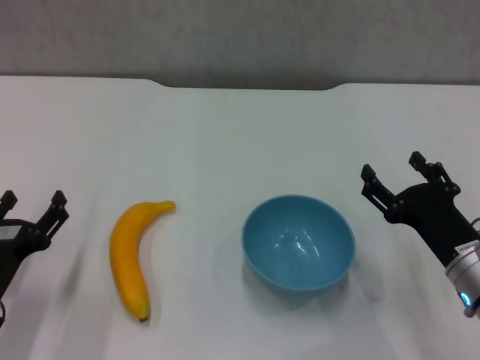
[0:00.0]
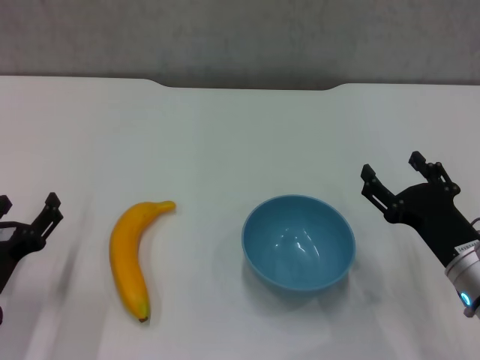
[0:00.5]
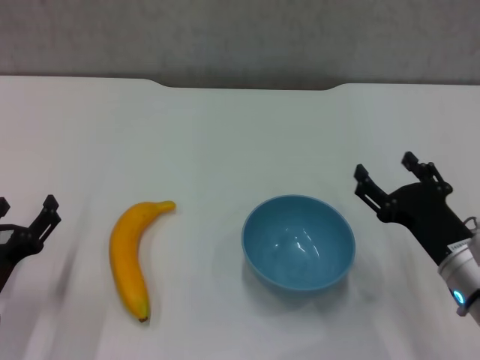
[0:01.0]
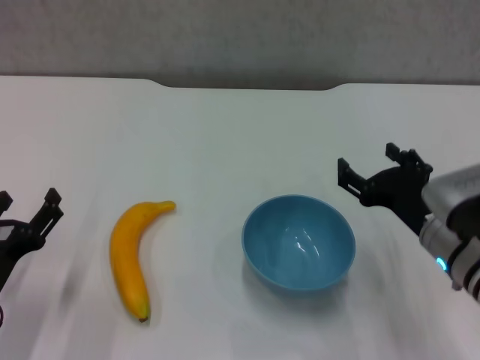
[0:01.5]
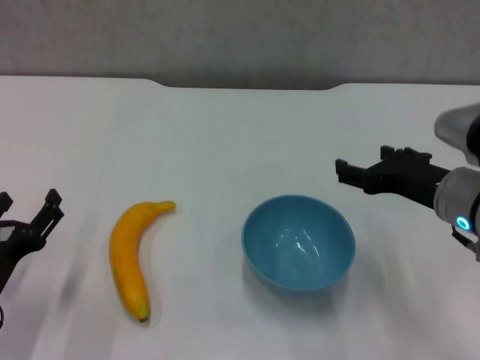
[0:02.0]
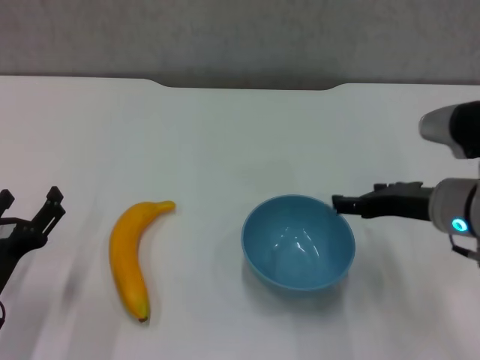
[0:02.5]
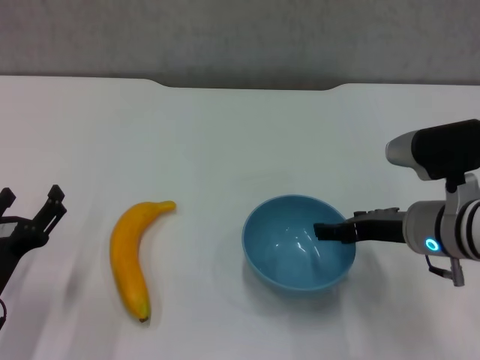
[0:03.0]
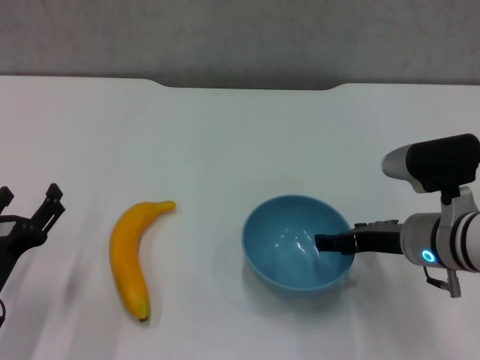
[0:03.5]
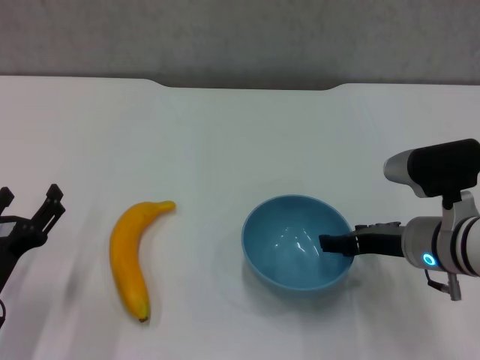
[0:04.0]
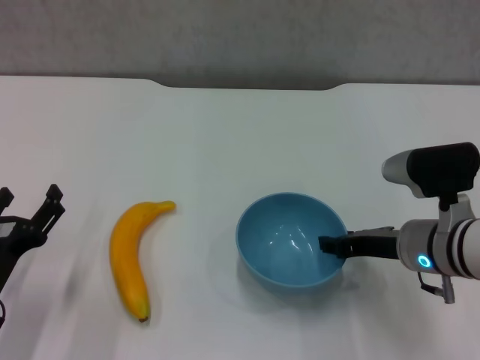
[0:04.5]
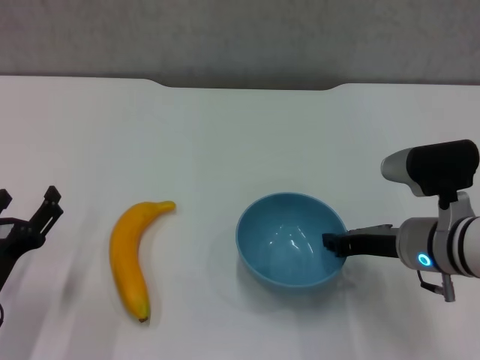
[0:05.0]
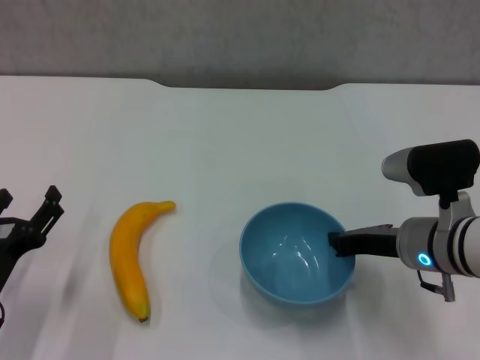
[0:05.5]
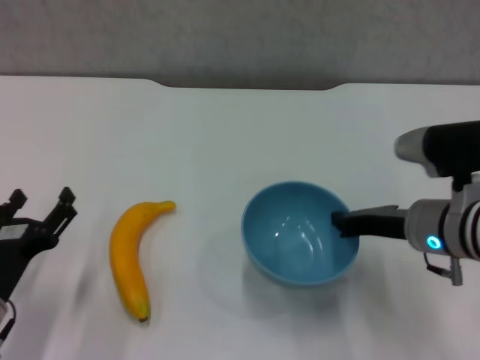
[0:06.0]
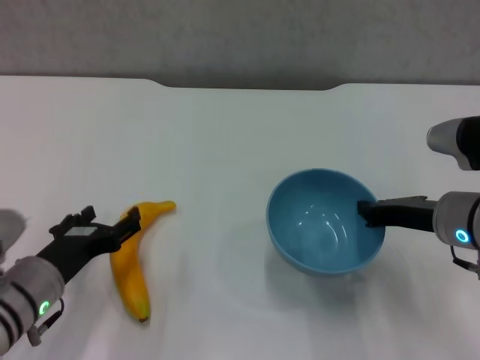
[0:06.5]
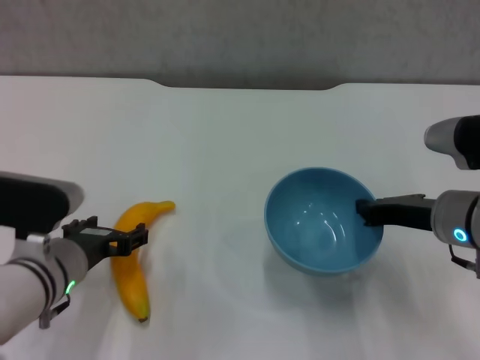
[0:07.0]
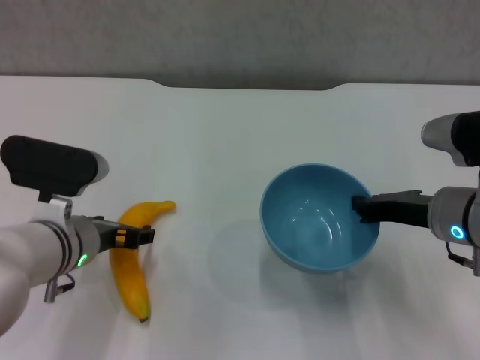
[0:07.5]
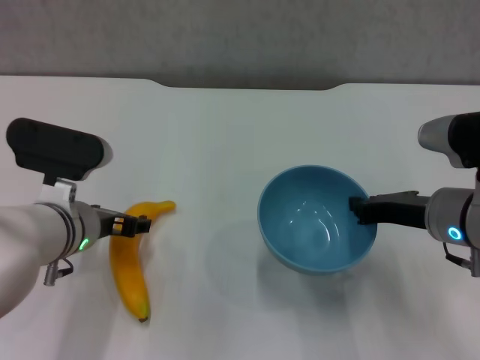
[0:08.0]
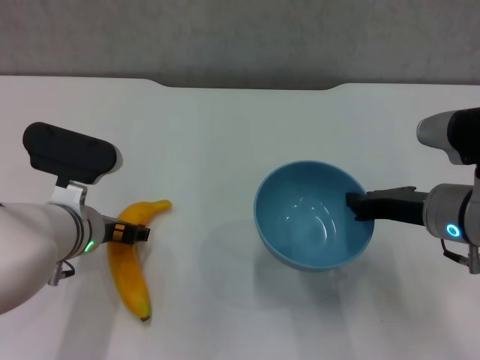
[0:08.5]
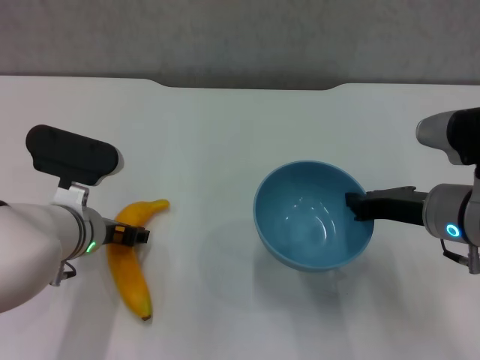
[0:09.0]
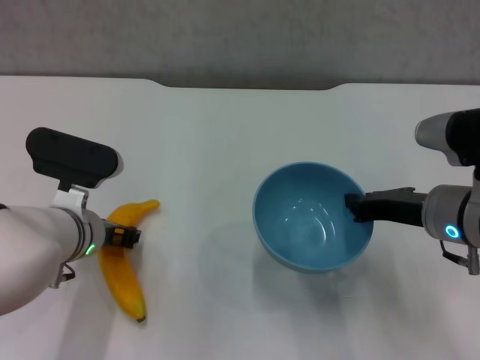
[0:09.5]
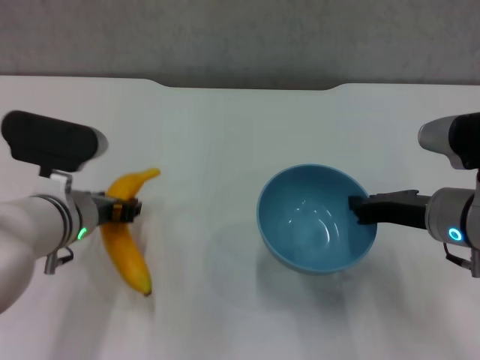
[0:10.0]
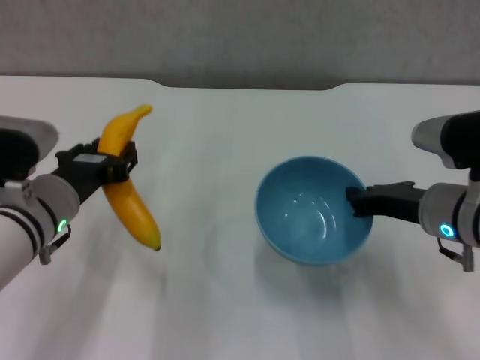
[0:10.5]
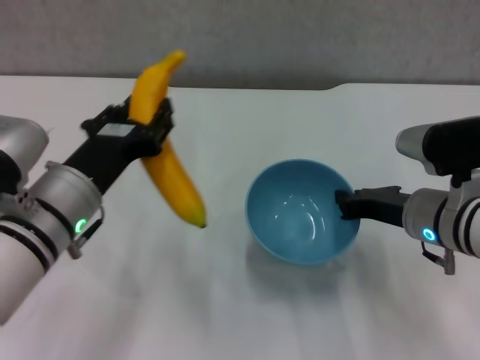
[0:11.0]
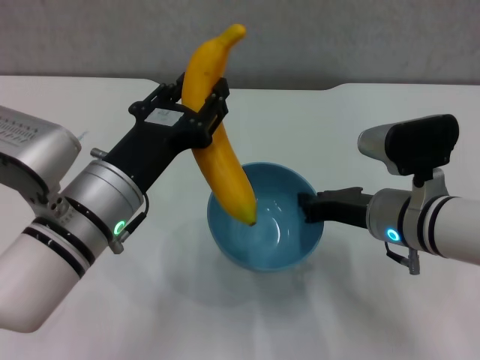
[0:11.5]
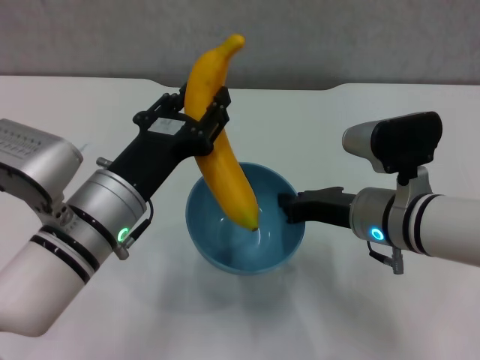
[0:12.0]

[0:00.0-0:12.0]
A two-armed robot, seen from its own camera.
Step, 0:00.0 to 0:05.5: Grasp the blue bowl with right gripper.
Step, 0:06.5 to 0:09.5: Grasp the banana with left gripper.
0:00.0 to 0:02.0: The right gripper goes about 10 cm upward.
0:02.0 to 0:04.0: The right gripper goes approximately 5 cm downward.
0:04.0 to 0:06.0: The right gripper closes its fingers.
0:06.0 to 0:08.0: The left gripper goes about 15 cm forward, to the right and upward.
0:08.0 to 0:10.0: The left gripper closes.
0:10.0 to 0:12.0: The left gripper travels backward by some 5 cm; the right gripper goes about 5 cm to the left.

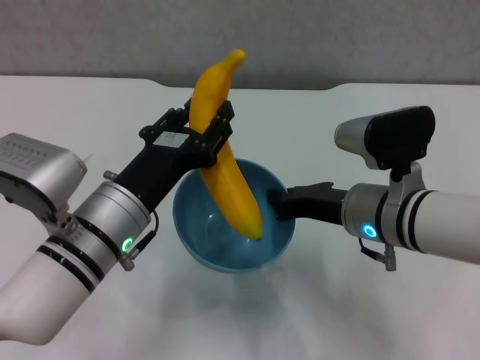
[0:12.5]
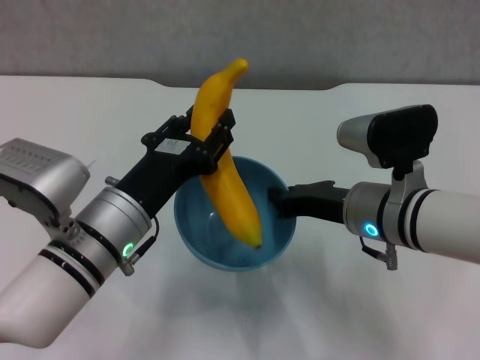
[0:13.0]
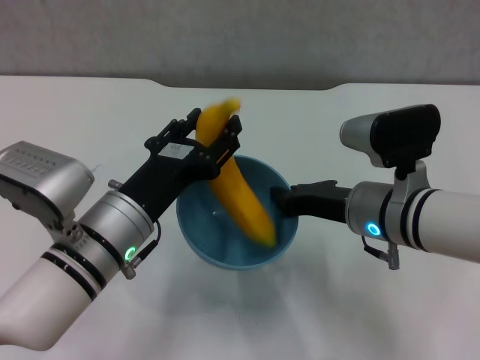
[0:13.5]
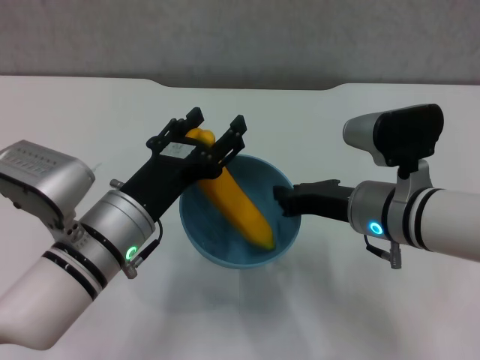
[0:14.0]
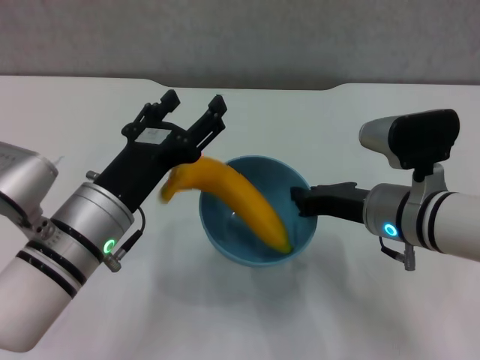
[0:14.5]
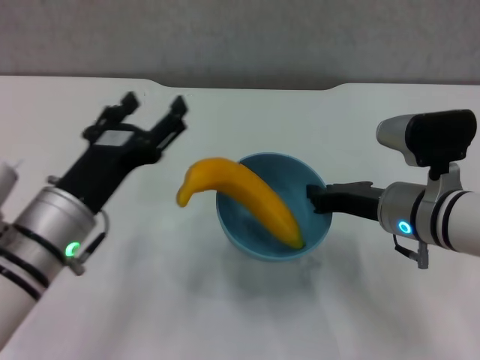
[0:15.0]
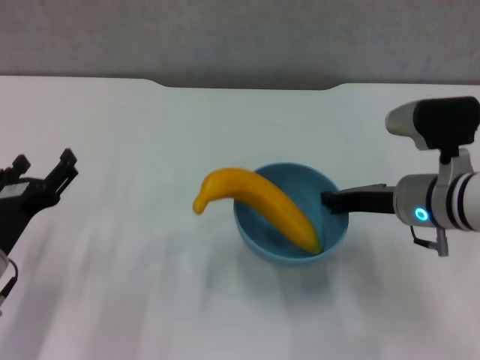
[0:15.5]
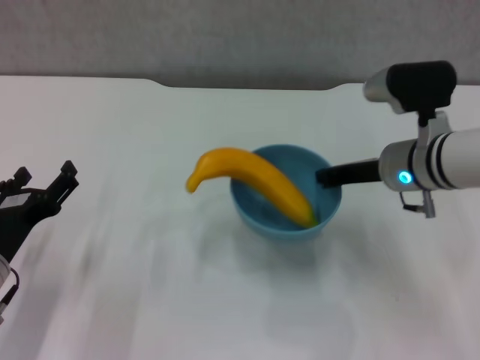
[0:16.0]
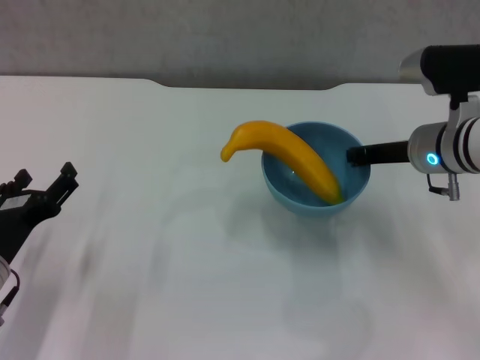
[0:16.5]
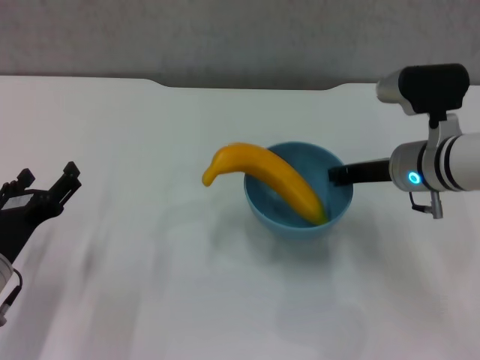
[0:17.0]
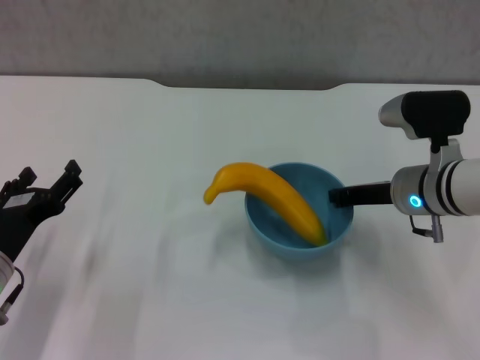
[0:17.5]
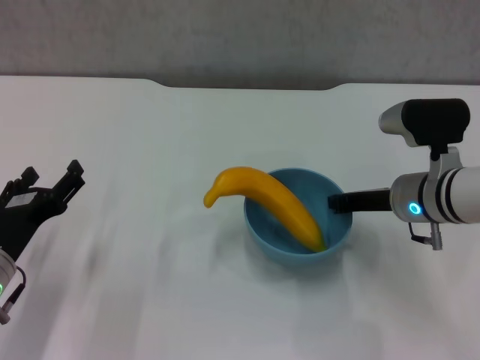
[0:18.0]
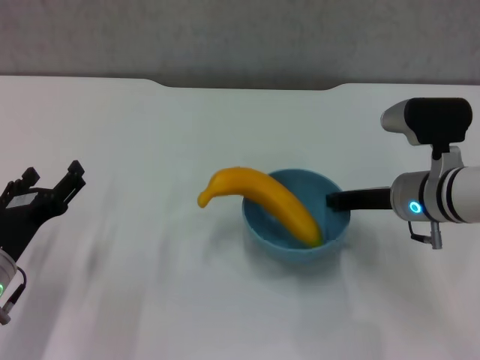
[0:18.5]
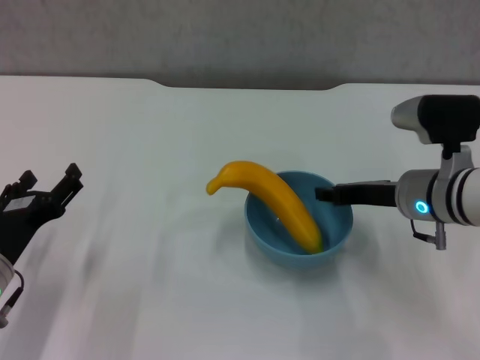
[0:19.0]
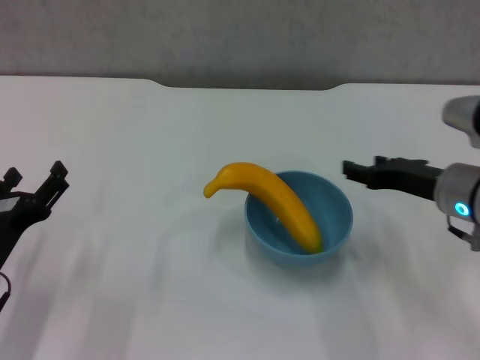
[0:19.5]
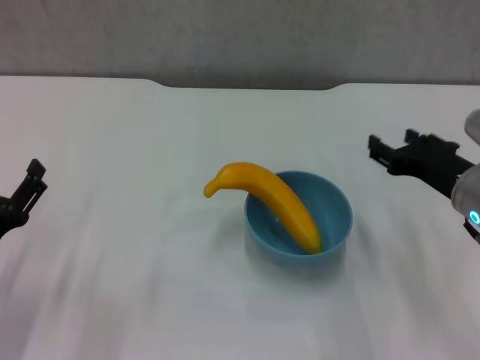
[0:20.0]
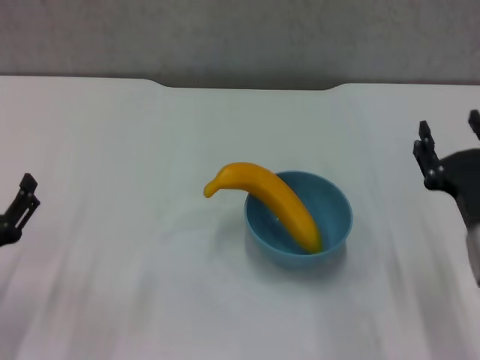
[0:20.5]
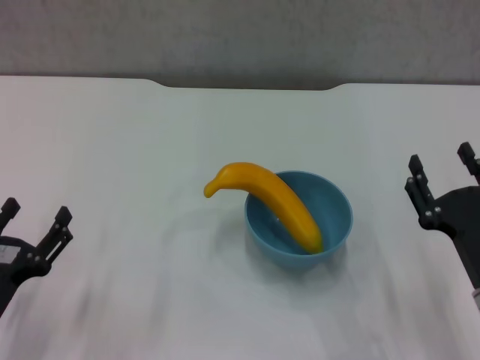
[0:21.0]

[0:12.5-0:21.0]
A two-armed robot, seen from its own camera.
Step, 0:15.0 to 0:19.0: Place the bowl on the table with right gripper.
0:12.5 to 0:14.5: The left gripper opens.
0:14.5 to 0:16.5: The left gripper goes approximately 15 cm to the left and downward. Meanwhile the right gripper travels forward and to the right by approximately 10 cm.
0:16.5 to 0:19.0: The right gripper shifts by some 5 cm.
0:19.0 to 0:21.0: The right gripper is displaced backward by approximately 15 cm, and opens up, while the left gripper travels backward by some 5 cm.

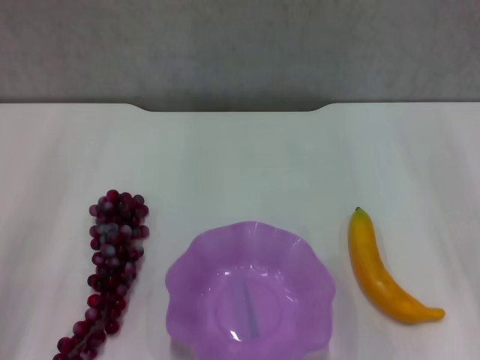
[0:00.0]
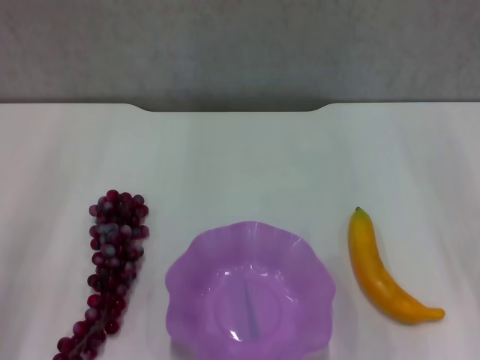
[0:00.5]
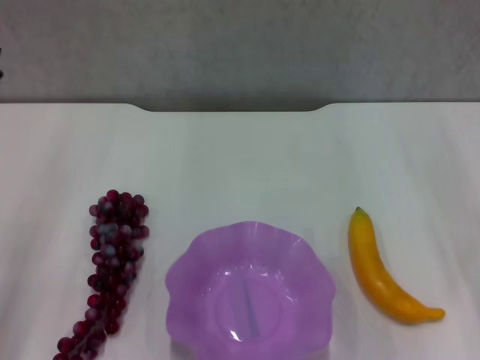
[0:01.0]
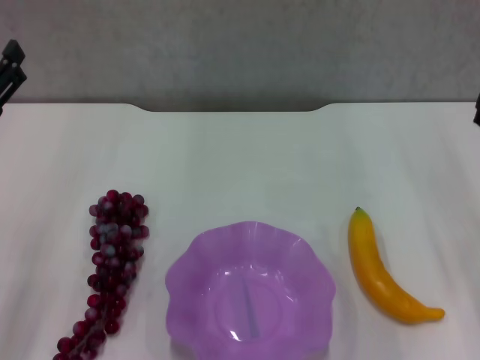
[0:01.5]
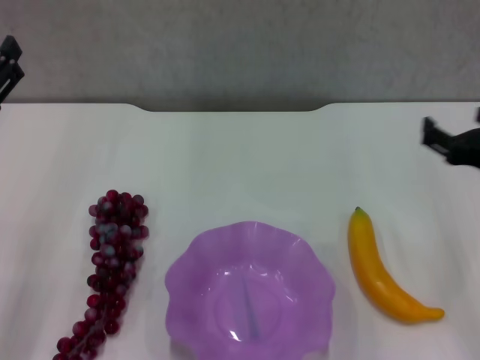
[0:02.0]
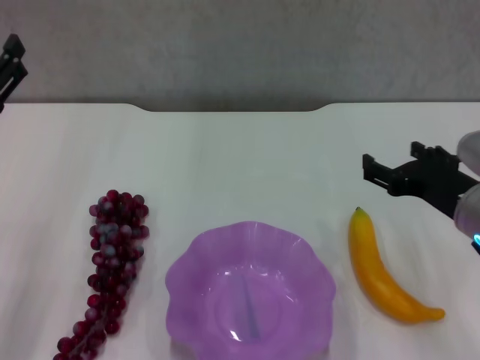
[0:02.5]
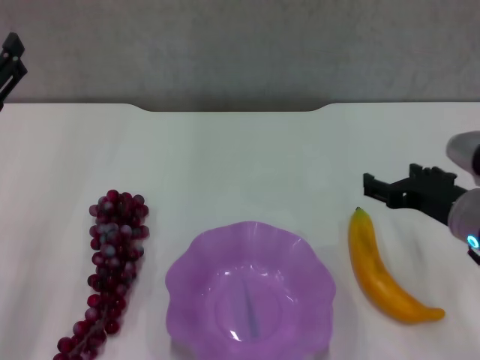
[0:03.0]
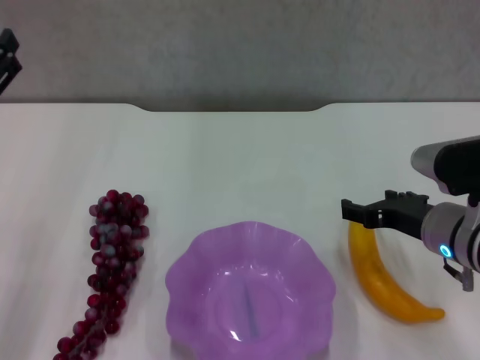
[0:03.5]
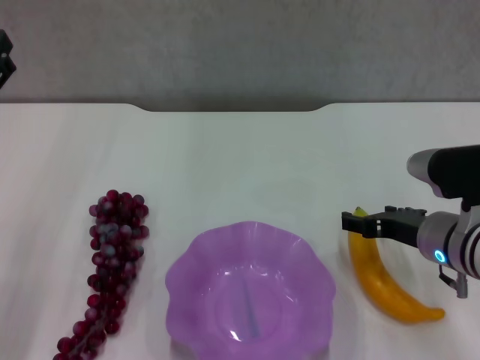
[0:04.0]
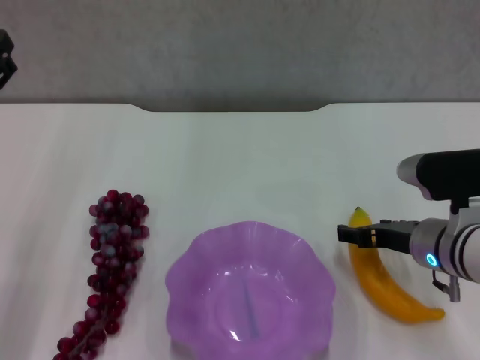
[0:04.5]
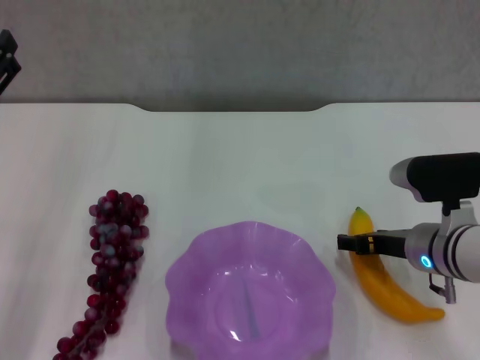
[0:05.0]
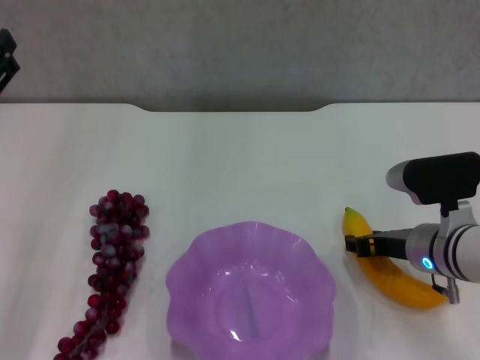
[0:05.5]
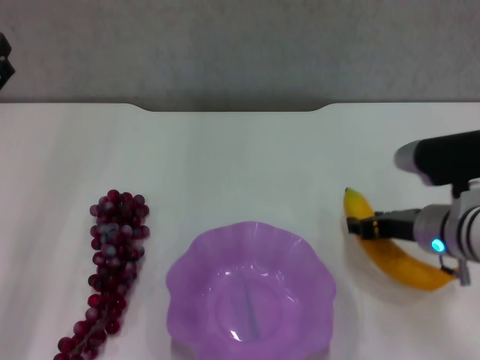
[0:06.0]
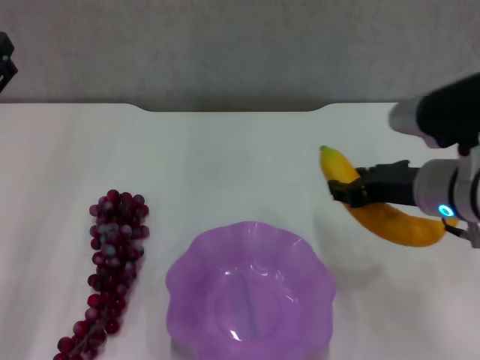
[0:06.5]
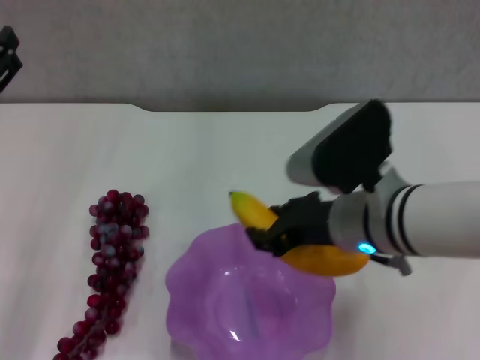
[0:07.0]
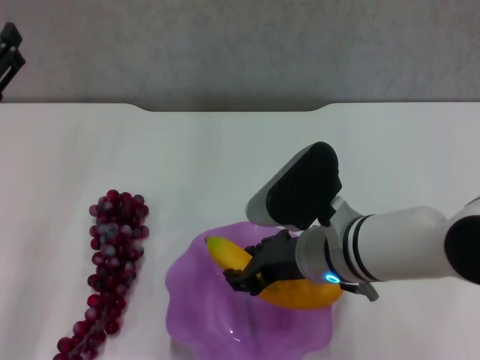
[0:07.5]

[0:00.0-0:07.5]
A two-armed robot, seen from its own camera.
Step, 0:01.0 to 0:05.5: Grasp the banana with right gripper.
0:02.0 to 0:04.0: The right gripper goes roughly 10 cm downward and to the left.
0:04.0 to 0:05.5: The right gripper closes.
0:05.5 to 0:07.5: The right gripper heads to the left and upward, covering some 15 cm.
